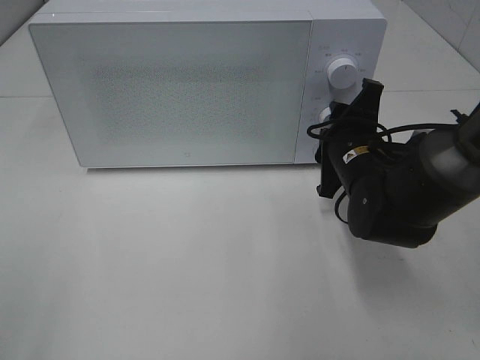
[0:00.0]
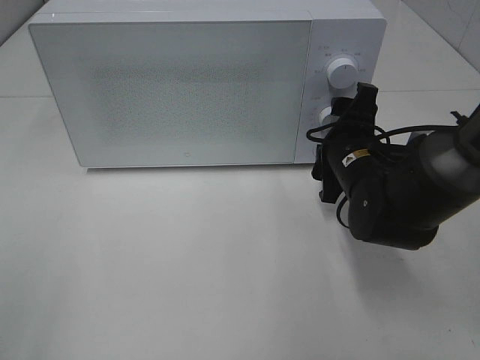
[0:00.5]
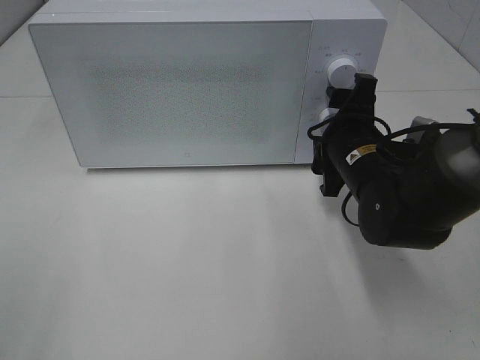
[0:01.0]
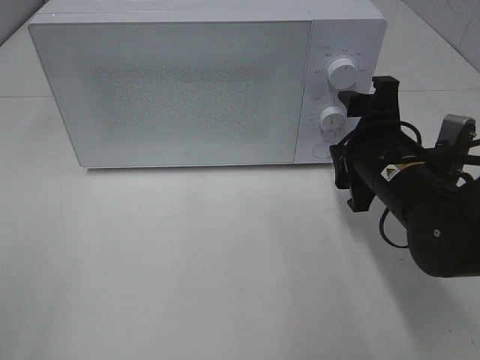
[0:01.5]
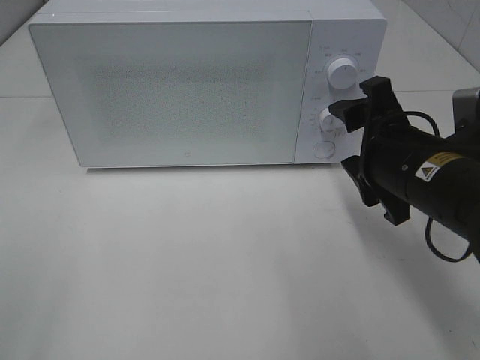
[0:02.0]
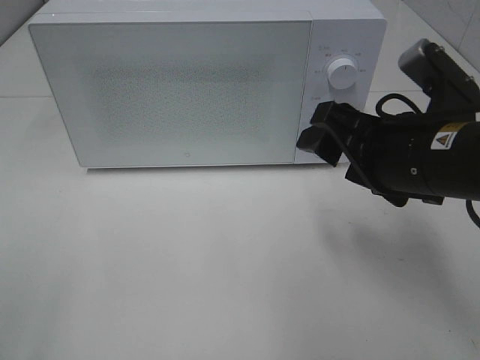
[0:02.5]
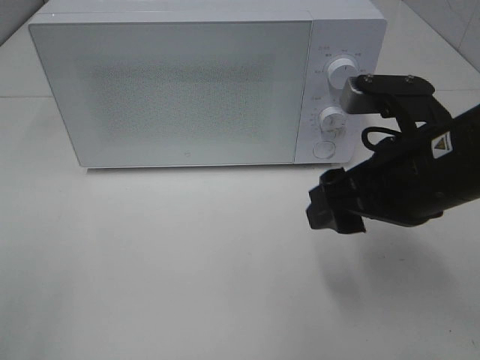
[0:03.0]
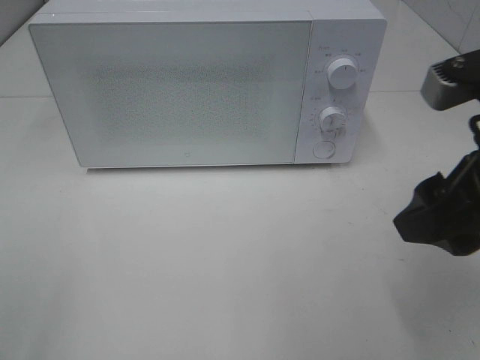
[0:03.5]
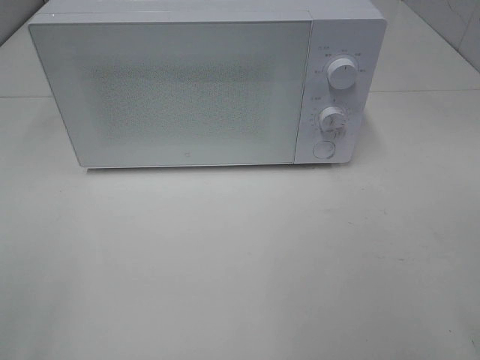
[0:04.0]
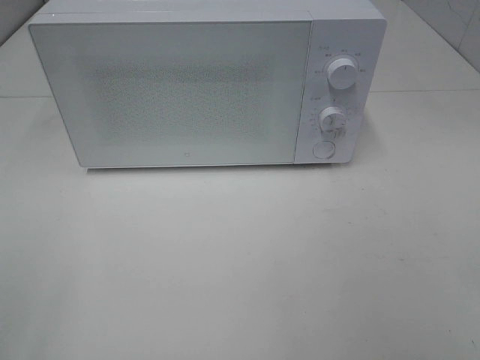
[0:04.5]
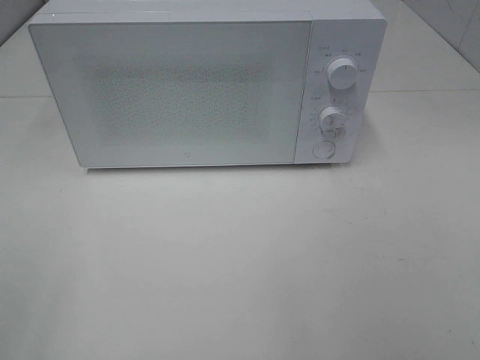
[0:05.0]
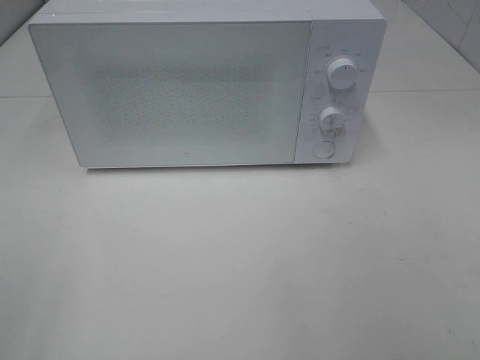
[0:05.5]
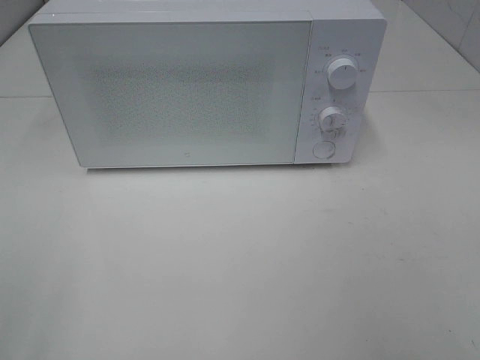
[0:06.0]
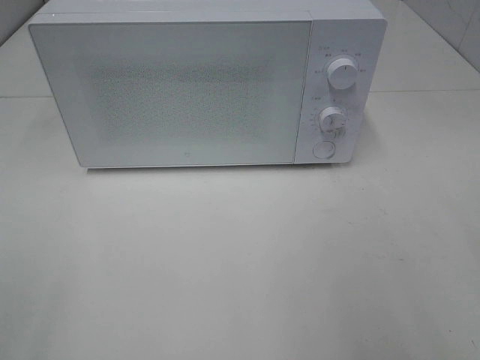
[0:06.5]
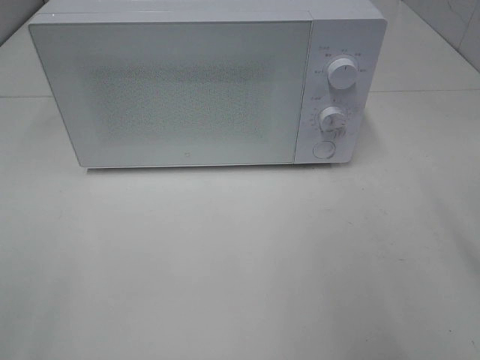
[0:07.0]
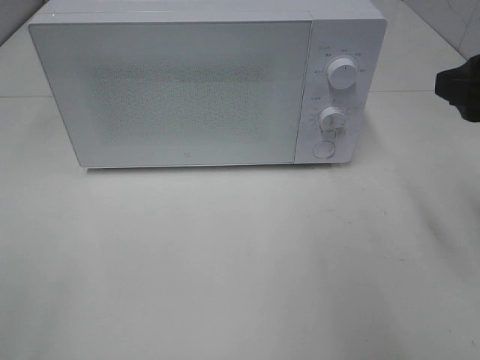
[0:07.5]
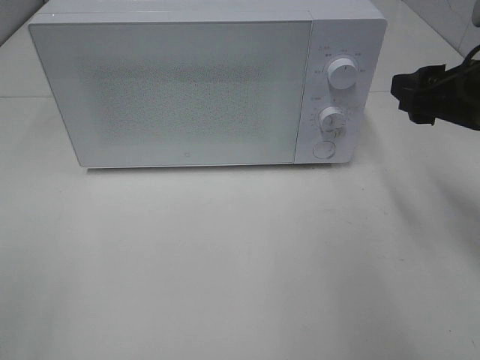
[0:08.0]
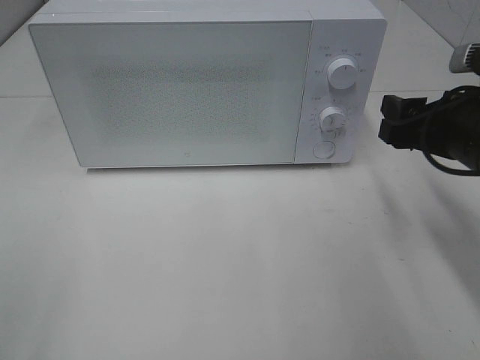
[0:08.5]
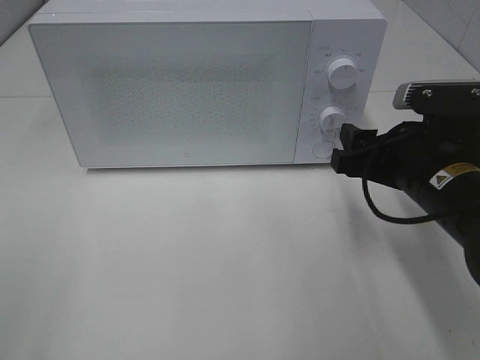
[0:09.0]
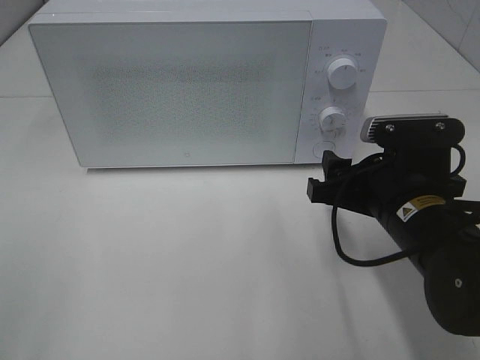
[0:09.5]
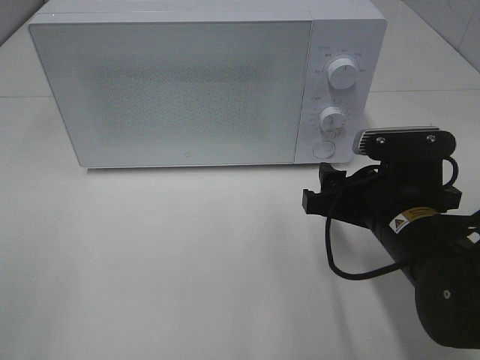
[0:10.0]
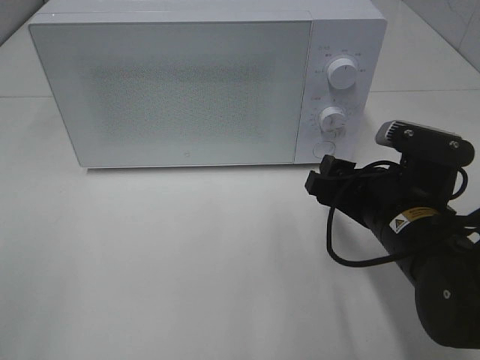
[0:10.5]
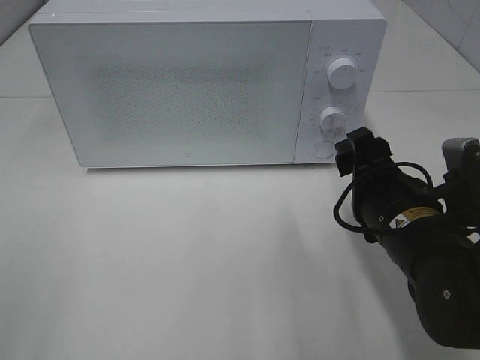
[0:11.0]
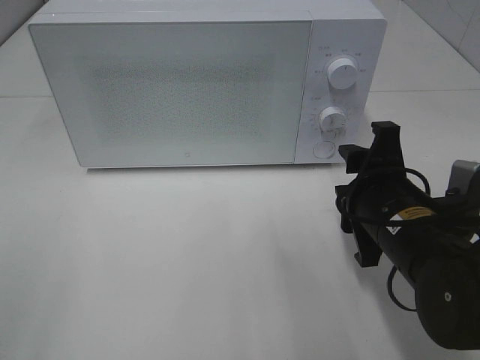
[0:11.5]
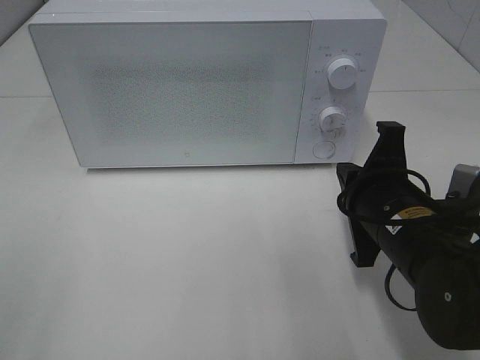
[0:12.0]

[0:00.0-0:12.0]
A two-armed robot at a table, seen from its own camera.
Task of the whole recording: Heat Sandwich.
0:00.0 to 0:02.0: The right gripper moves backward and upward, about 10 cm.
0:02.0 to 0:04.0: The right gripper moves backward, upward and to the right, approximately 20 cm.
0:06.0 to 0:08.0: The right gripper travels forward by about 20 cm.
0:08.0 to 0:10.0: The right gripper travels downward and to the left by about 15 cm.
0:10.0 to 0:12.0: The right gripper closes up.

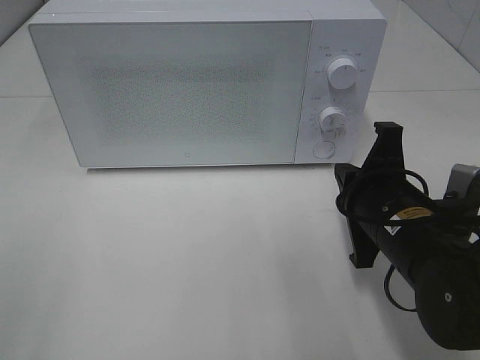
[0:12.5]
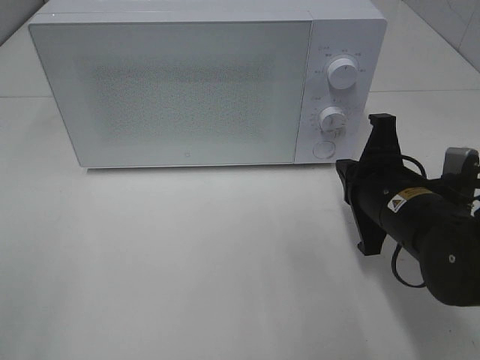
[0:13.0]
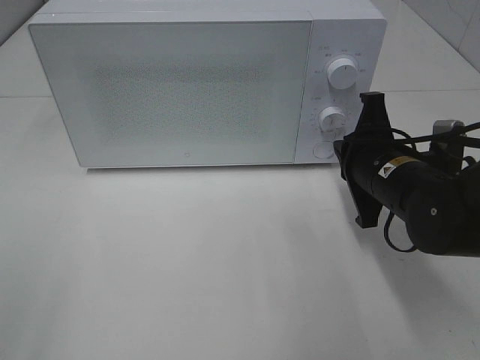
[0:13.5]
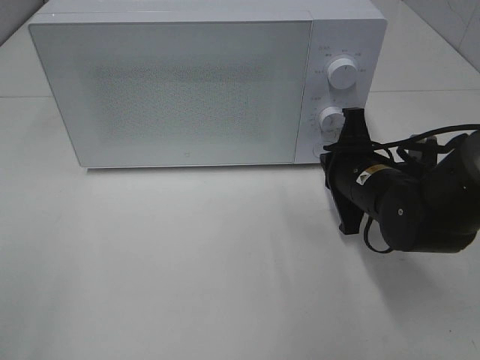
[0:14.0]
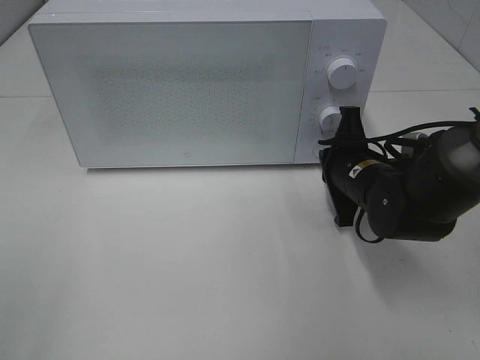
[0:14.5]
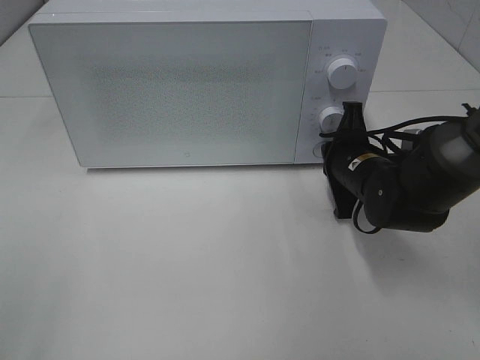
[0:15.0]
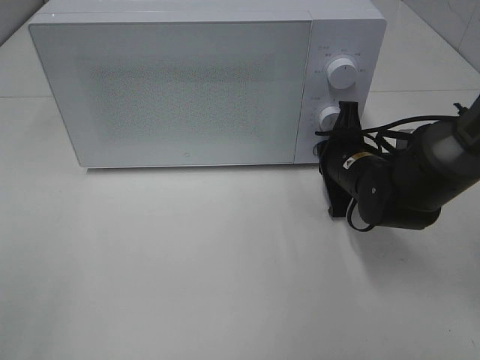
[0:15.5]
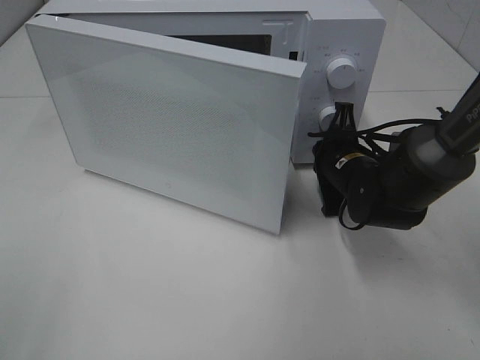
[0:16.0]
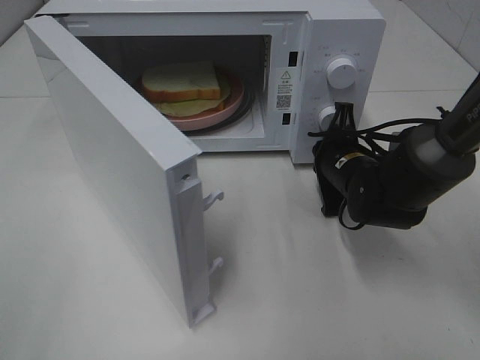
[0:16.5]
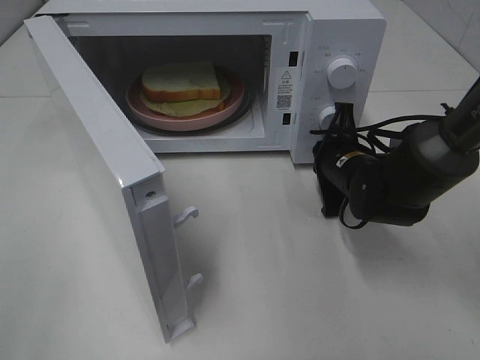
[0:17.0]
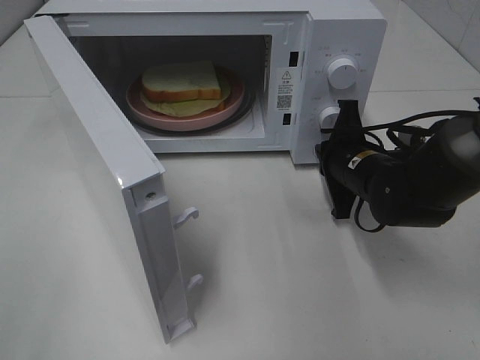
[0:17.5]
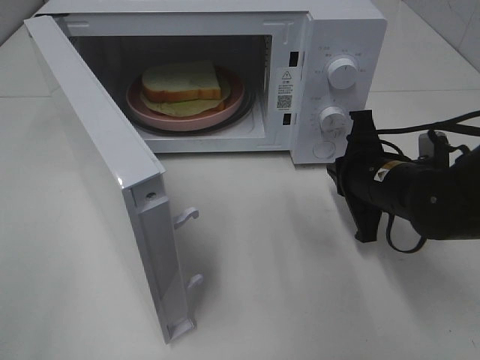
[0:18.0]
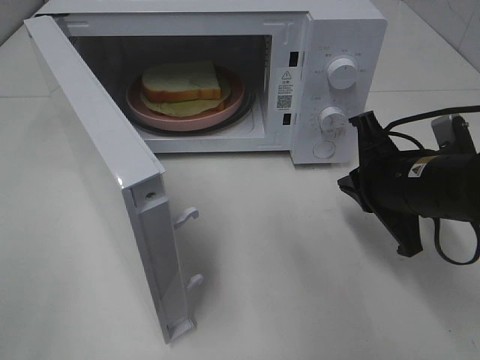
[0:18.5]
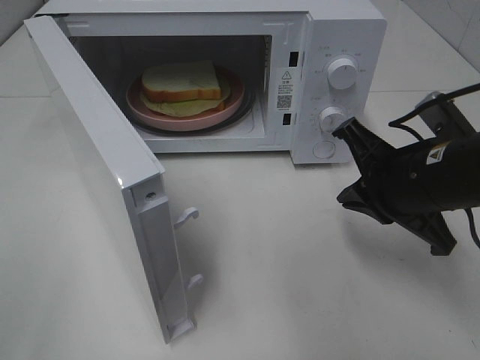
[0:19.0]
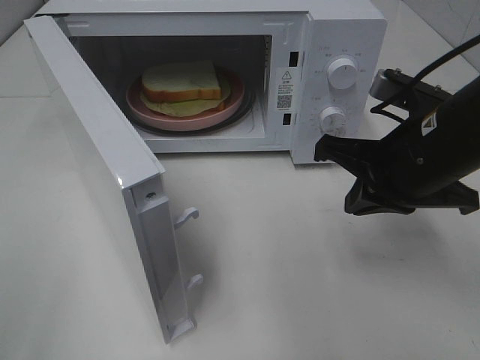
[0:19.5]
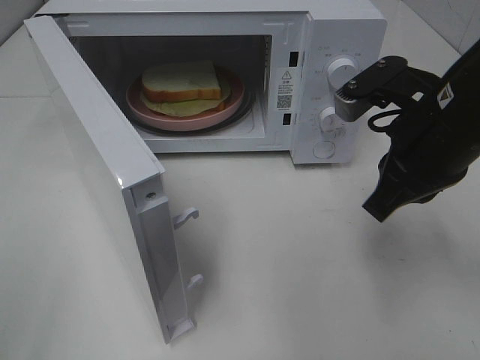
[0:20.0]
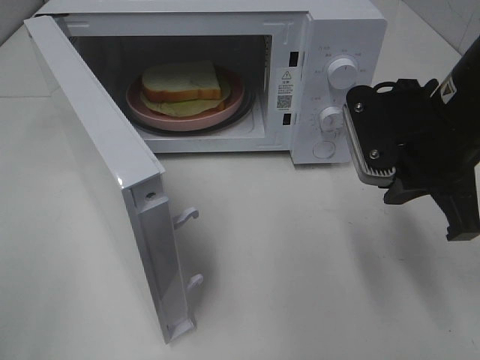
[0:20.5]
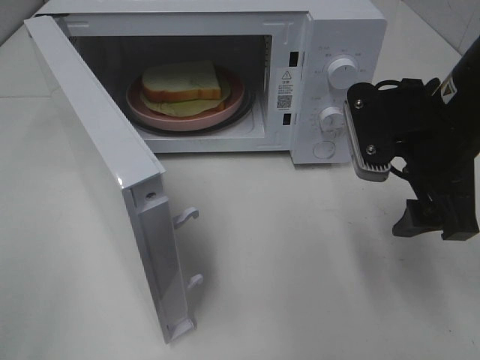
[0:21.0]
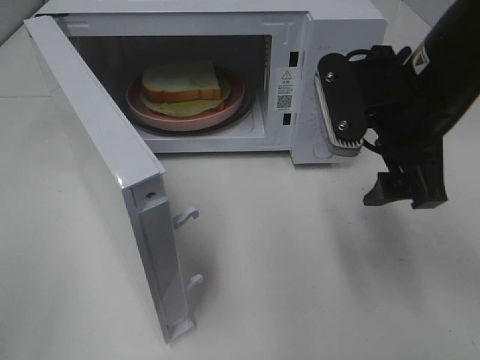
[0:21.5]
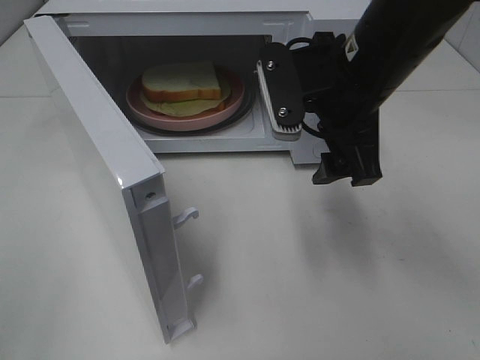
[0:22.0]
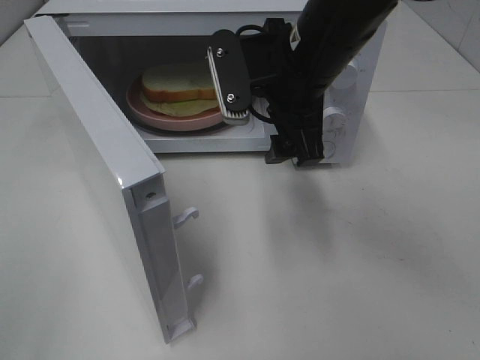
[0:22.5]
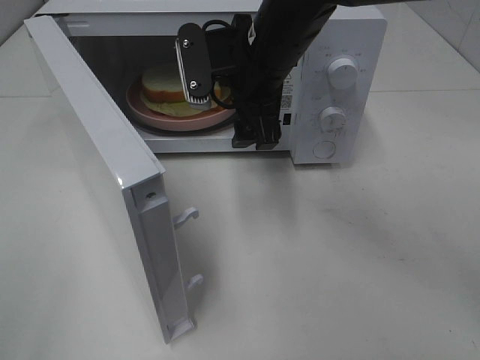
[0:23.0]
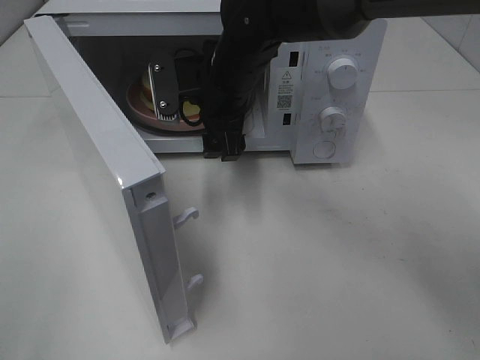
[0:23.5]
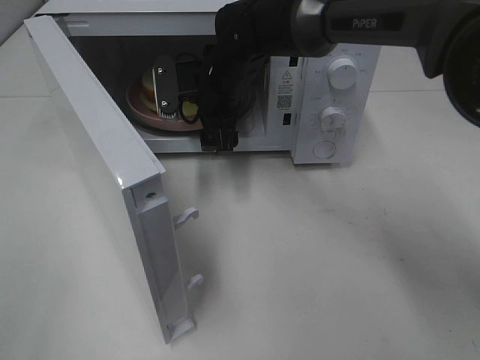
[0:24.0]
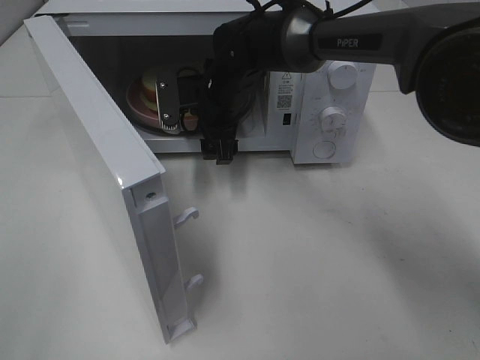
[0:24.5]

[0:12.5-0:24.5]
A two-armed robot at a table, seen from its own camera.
Task of the whole recording: Heat Sandwich.
Step, 0:12.5 to 0:17.5: Right hand: press the switch.
0:12.5 to 0:14.5: The right gripper shifts about 10 cm forward.
0:16.5 to 0:18.5: The right gripper is displaced backward and upward by approximately 15 cm.
0:18.5 to 0:20.5: The right gripper travels upward by about 10 cm.
0:20.5 to 0:22.5: The right gripper goes about 15 cm to the left and forward, and opens up.
0:22.5 to 0:24.5: The right gripper shifts some 20 cm forward, downward and to the left.

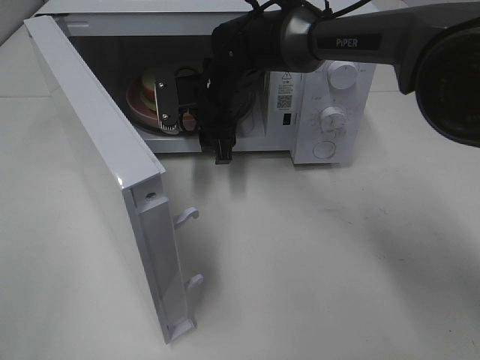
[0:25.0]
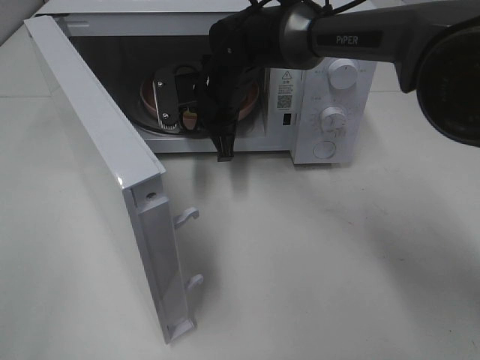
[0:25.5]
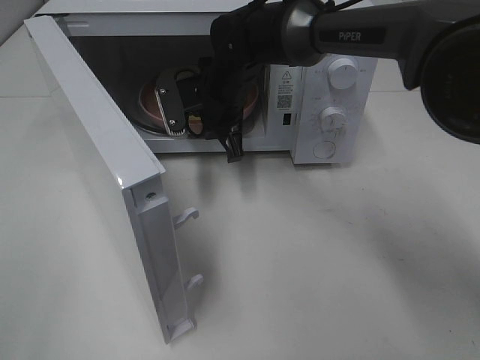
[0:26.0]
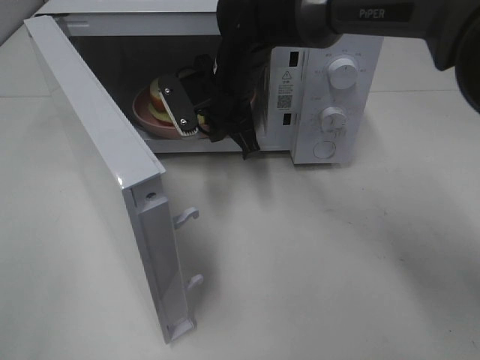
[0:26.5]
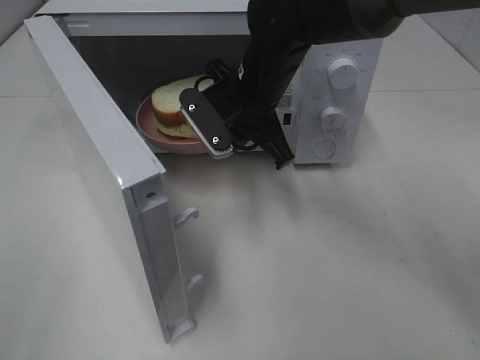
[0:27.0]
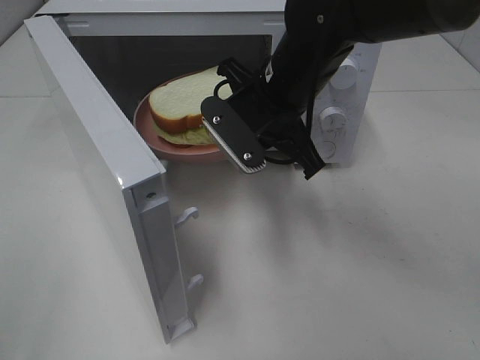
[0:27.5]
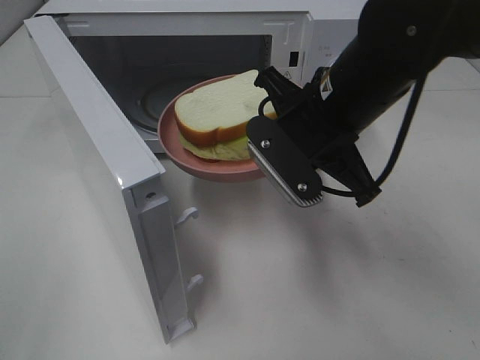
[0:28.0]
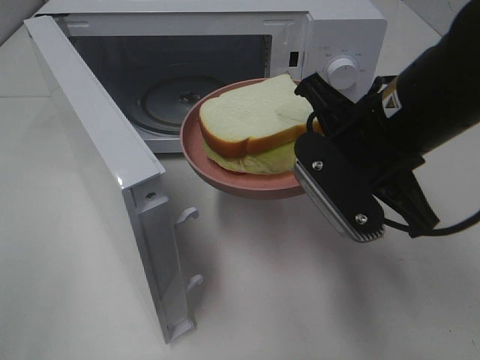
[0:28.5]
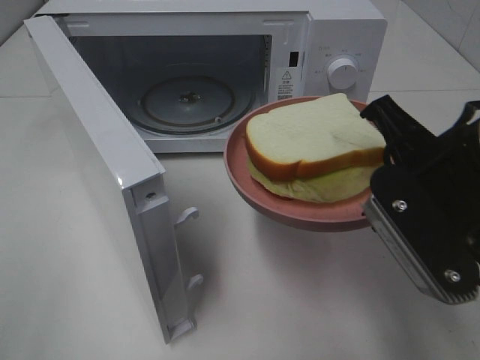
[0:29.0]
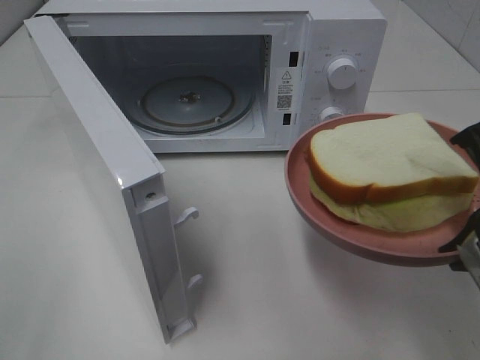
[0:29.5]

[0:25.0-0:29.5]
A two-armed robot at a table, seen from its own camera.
Task of the whole recording: Heat Sandwich.
0:25.0 to 0:27.0: The right gripper goes roughly 5 cm backward, and closes.
0:27.0 to 0:29.5: The right gripper travels backward and to the right by roughly 30 cm.
